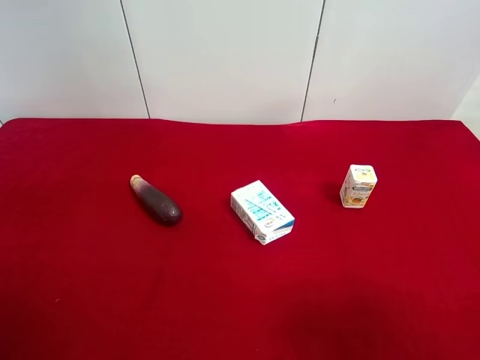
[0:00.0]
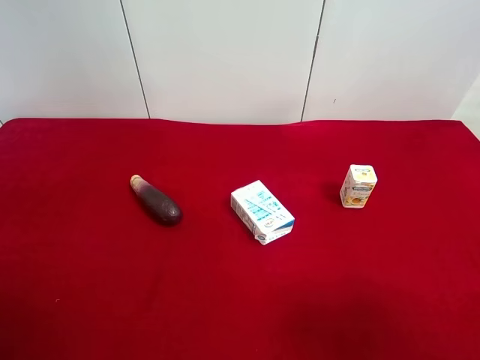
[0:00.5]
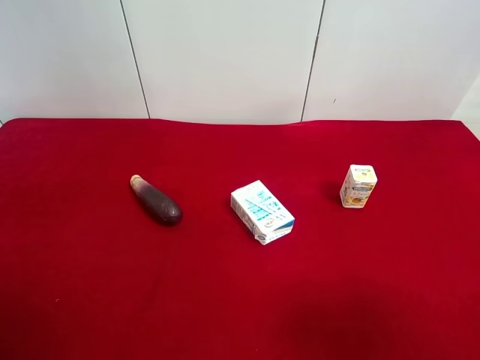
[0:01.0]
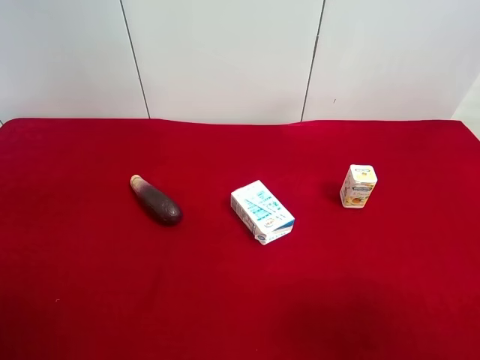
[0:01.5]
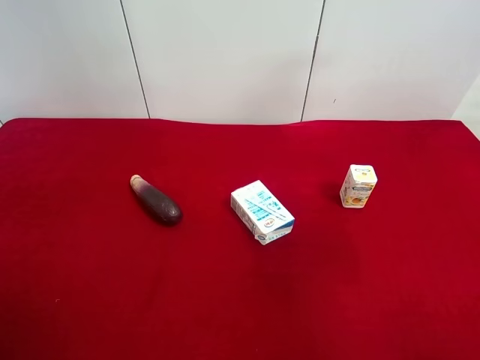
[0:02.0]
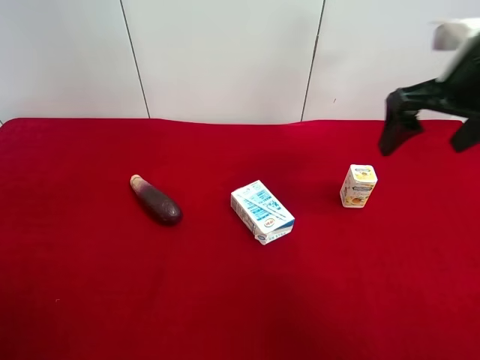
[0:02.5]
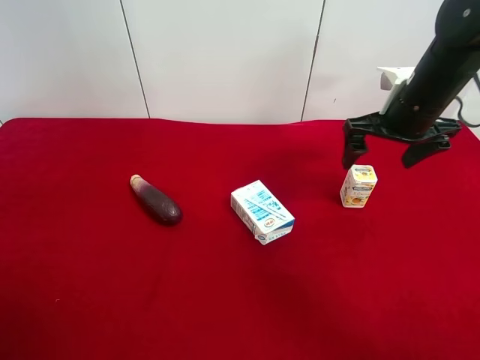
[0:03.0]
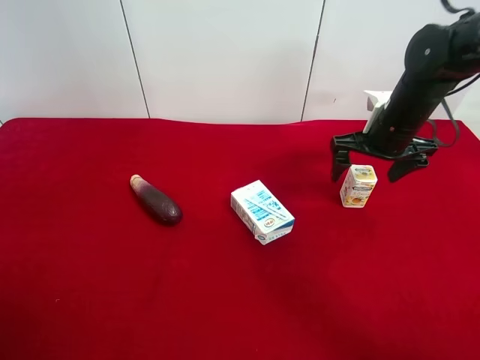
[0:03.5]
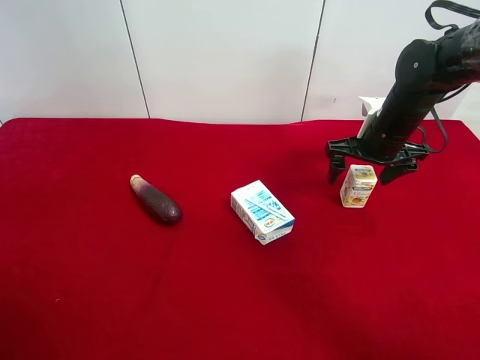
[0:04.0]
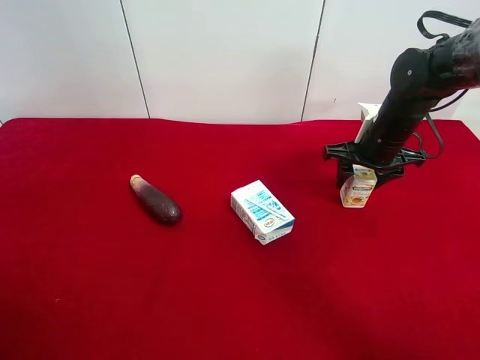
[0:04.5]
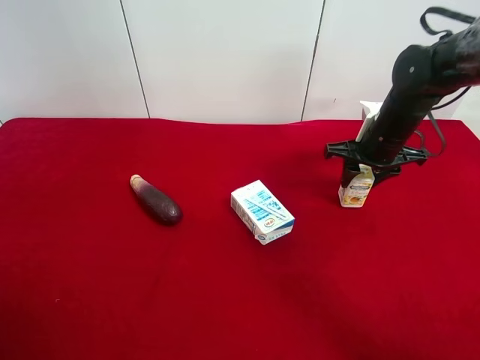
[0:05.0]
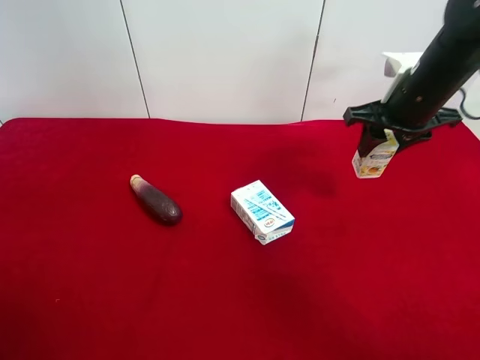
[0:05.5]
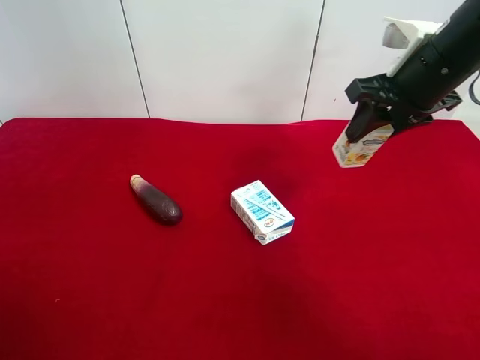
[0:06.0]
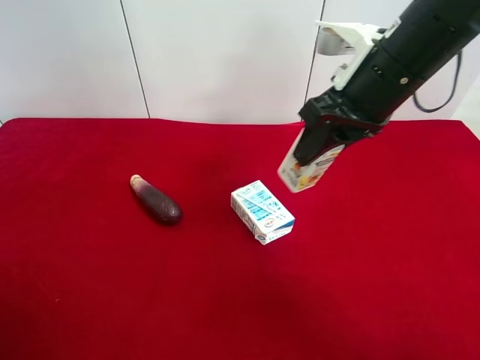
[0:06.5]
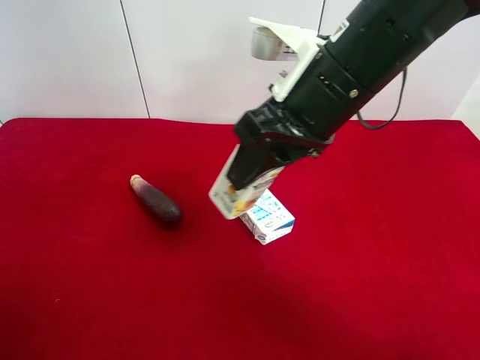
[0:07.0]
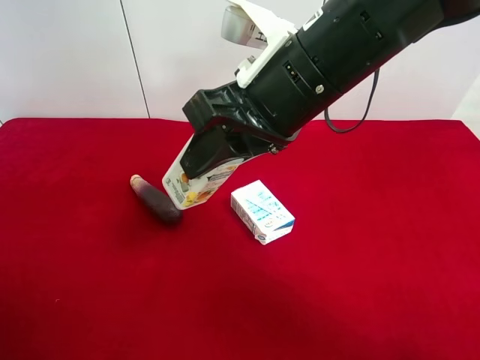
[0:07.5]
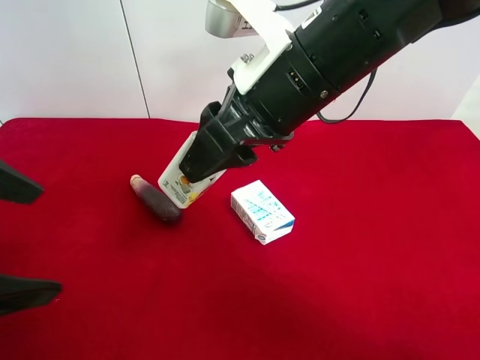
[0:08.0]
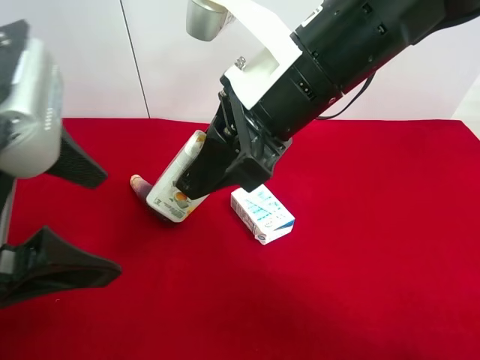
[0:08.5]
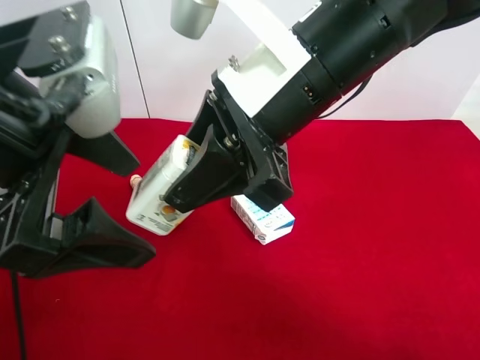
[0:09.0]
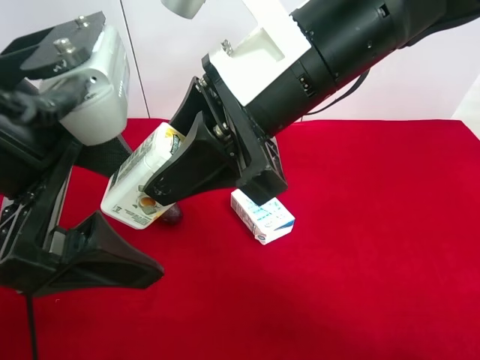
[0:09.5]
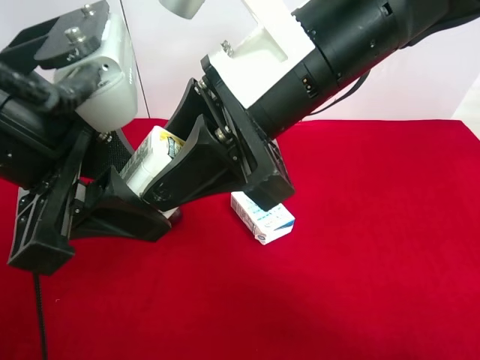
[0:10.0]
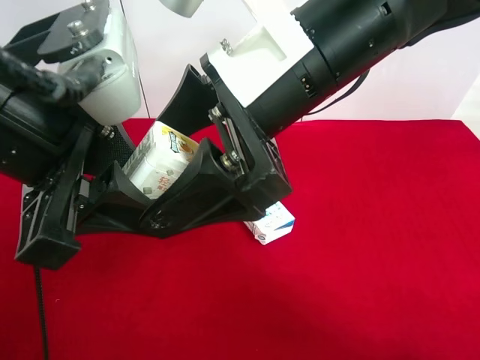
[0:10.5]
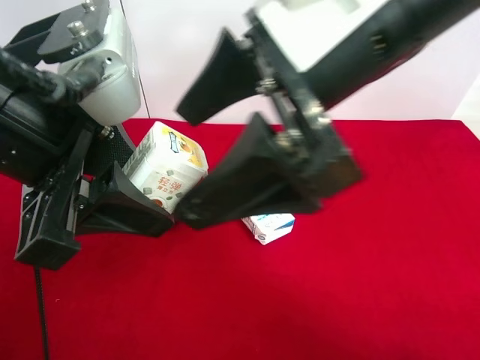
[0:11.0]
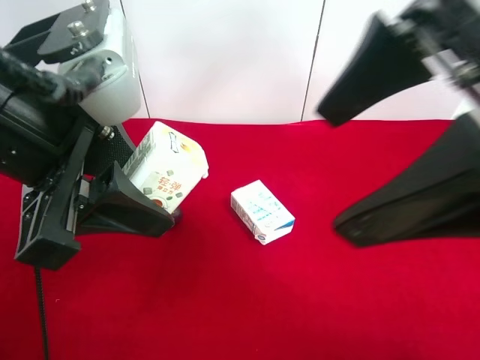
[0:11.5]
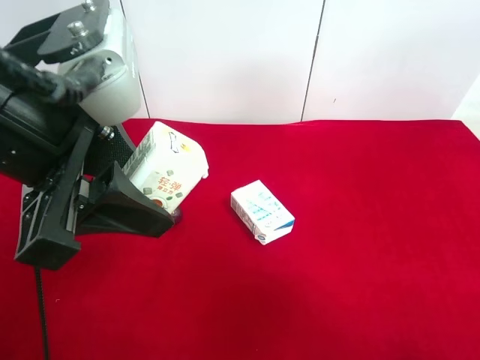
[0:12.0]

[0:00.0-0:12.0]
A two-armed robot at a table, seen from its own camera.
Task of the whole recording: use the right gripper to pick up the item and transfer it from the right gripper to the left gripper.
Step, 0:00.0 to 0:04.5: Use the right gripper to grab the square chewing gum on the right side of the table.
Step, 0:05.0 to 0:10.5: Pass the square chewing gum to the left gripper.
0:02.0 to 0:04.0: The right gripper shifts roughly 30 cm forward and downward.
0:04.0 to 0:06.0: The right gripper shifts about 15 cm upward and backward, and closes.
0:06.0 to 0:08.0: The left gripper travels forward and to the right by some 15 cm, while the right gripper is displaced to the left and backward by roughly 20 cm.
0:08.0 to 0:10.0: The left gripper shifts roughly 10 cm to the right, and closes its fingers.
0:10.0 to 0:12.0: The right gripper heads to the right and backward, covering about 25 cm, and opens its fingers.

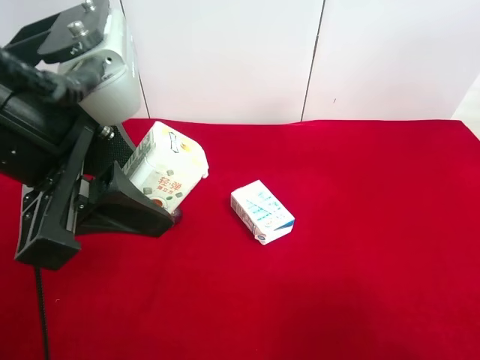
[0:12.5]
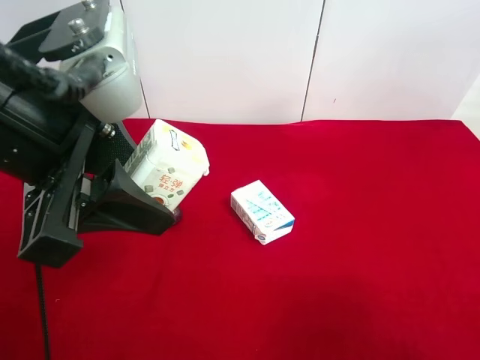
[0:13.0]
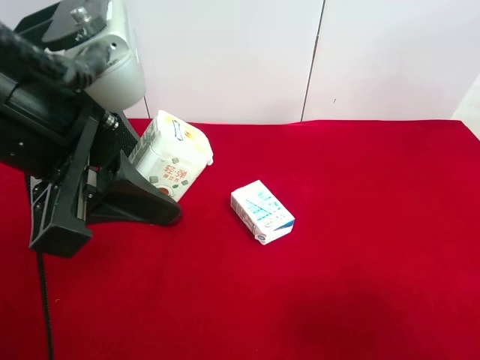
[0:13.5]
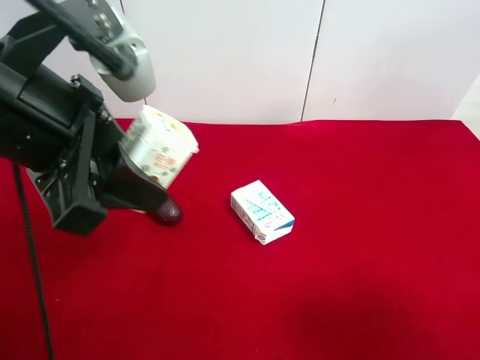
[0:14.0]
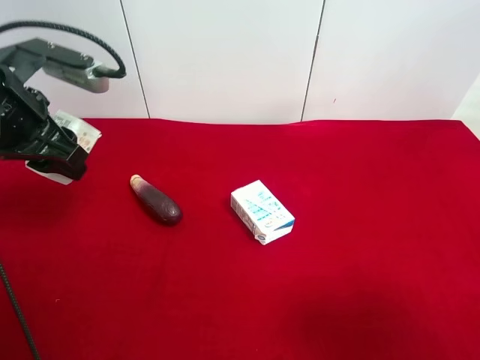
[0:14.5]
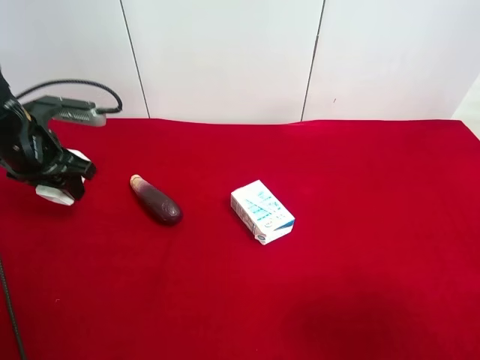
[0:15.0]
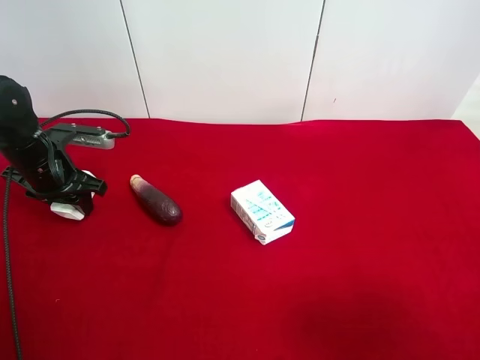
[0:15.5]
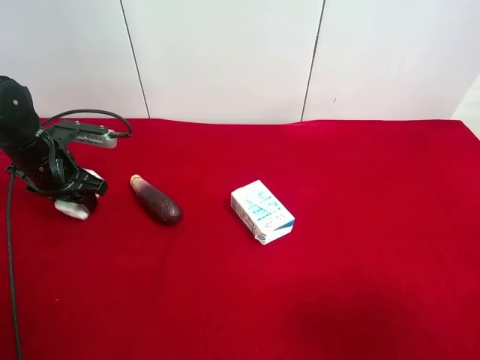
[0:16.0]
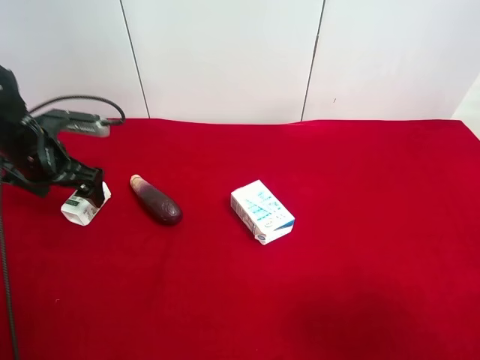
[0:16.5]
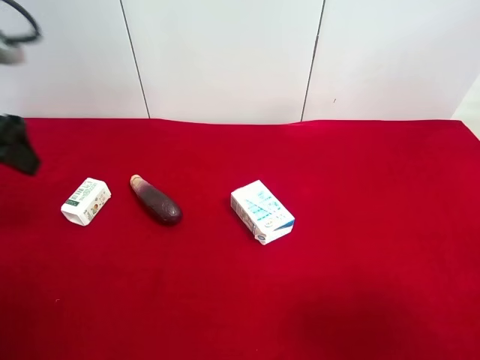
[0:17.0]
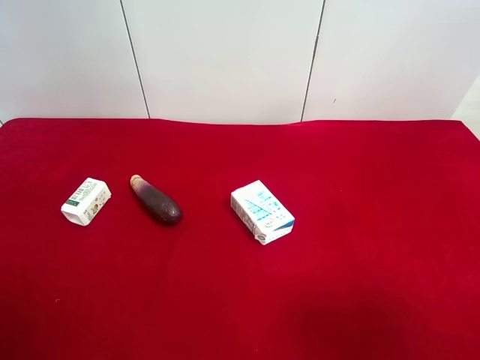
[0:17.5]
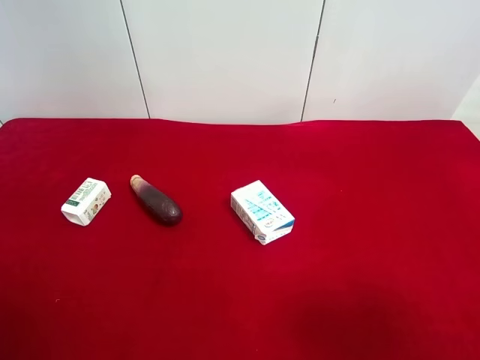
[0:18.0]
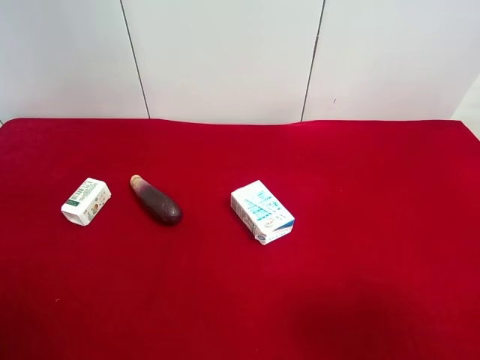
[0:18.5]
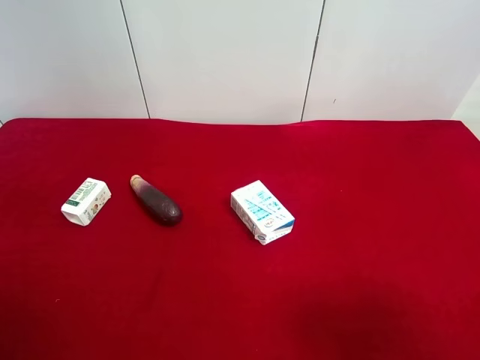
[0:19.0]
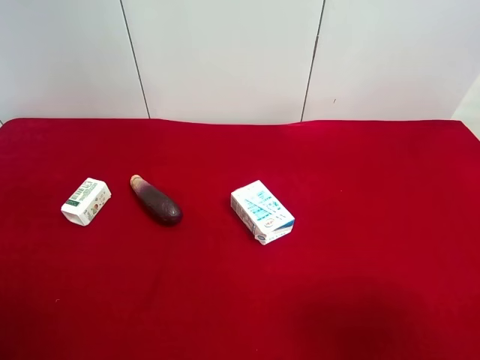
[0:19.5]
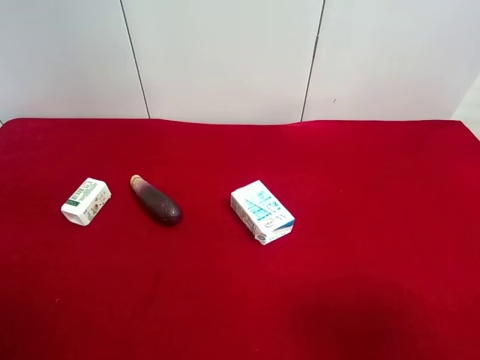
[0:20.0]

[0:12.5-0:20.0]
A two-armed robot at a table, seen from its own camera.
Task of the whole recording: use the right gripper to pick up the item and transfer it from the right gripper to the left gripper.
Step, 0:12.5 to 0:16.0: The left gripper places square chewing gum on the left side of the table.
0:12.5 to 0:14.5: The left gripper heads forward, to the left and downward, covering some 15 cm.
0:14.5 to 0:16.5: The left gripper travels downward and forward by approximately 10 cm, and opens.
0:16.5 to 0:18.0: The left gripper goes some 30 cm backward.

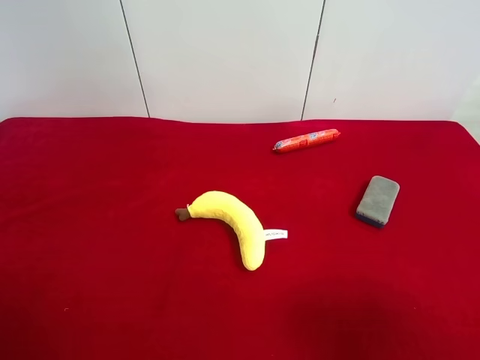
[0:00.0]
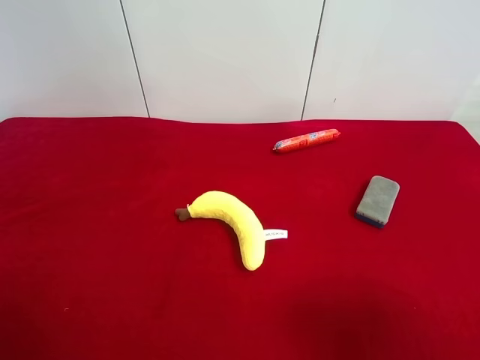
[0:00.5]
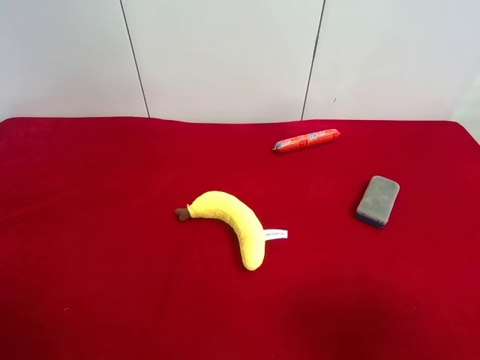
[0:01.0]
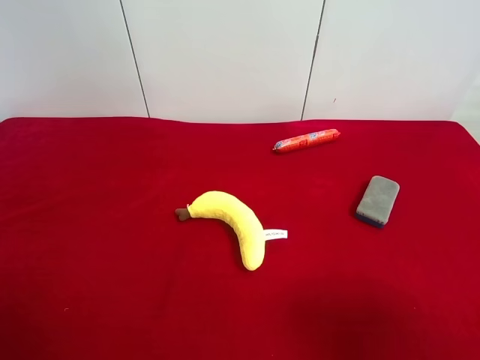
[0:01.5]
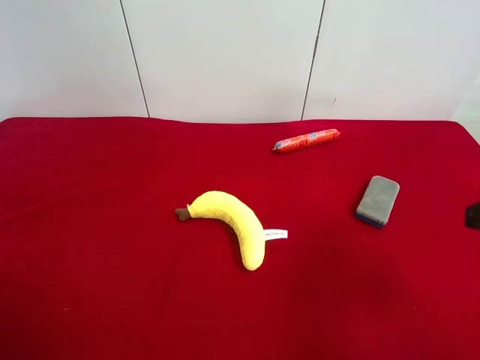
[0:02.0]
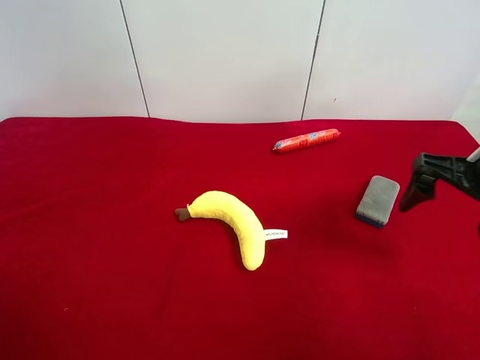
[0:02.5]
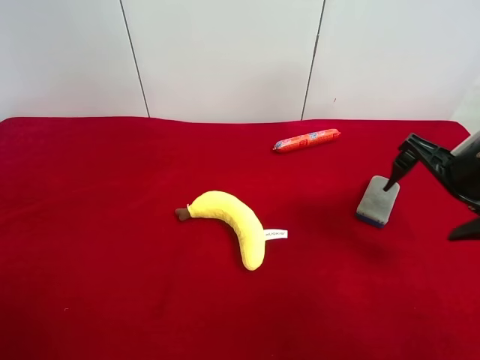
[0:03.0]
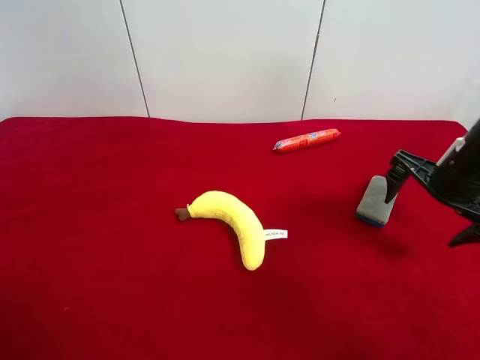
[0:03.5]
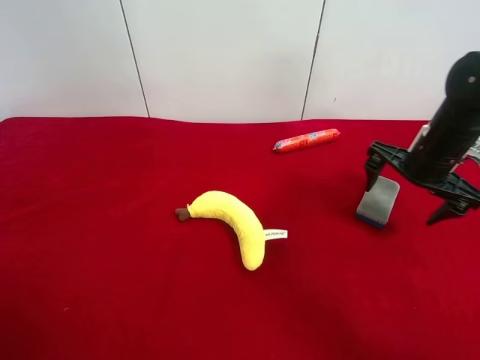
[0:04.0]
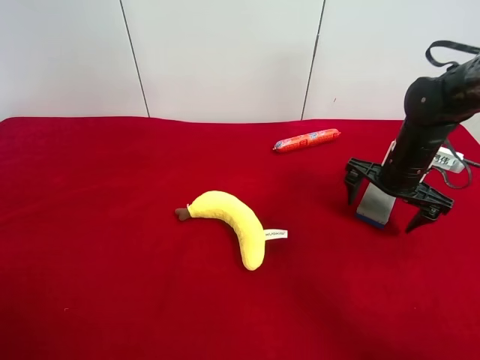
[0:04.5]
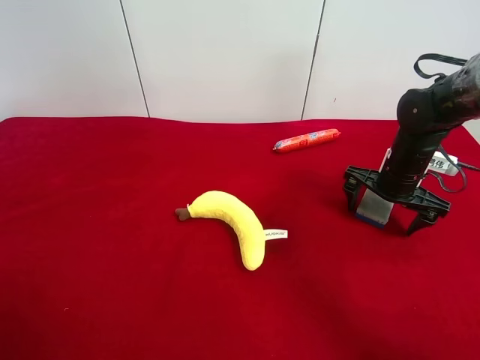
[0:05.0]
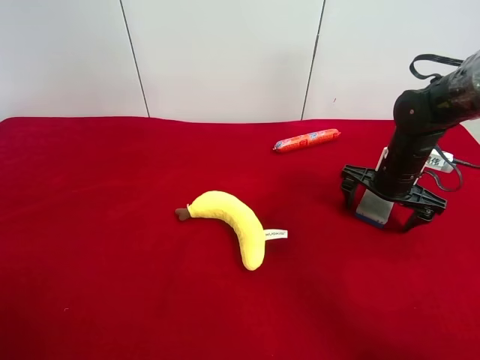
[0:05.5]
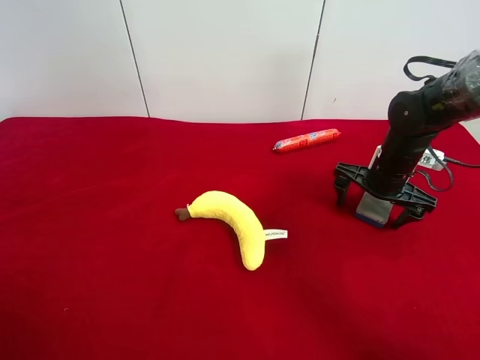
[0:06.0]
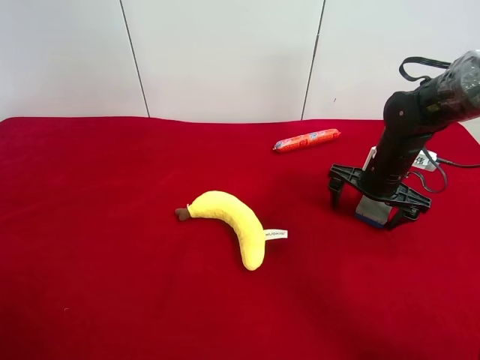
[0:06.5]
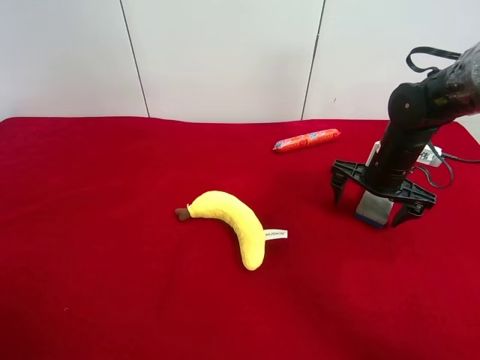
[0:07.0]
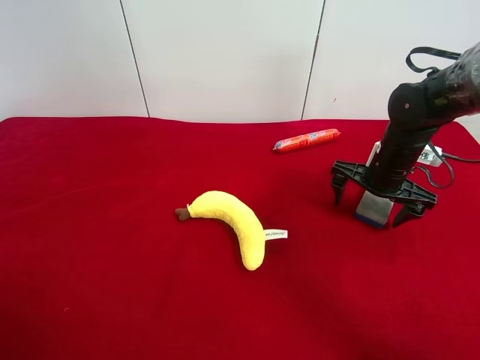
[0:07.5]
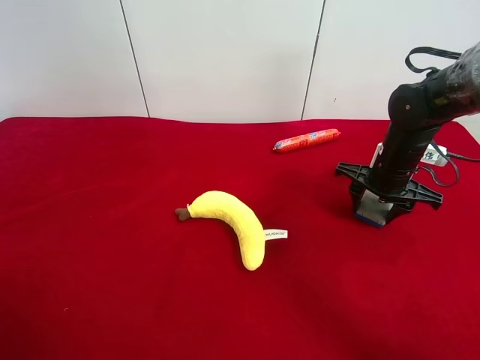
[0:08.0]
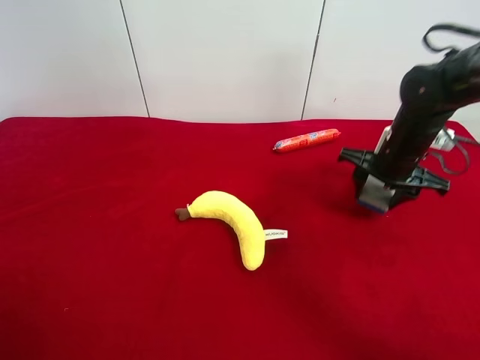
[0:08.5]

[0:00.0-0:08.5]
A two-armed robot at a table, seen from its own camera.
Task of the whole recording: use the right gripper to pick up the item and transfer it from the right gripper to the left gripper.
Step, 0:00.0 to 0:08.0: Use the right gripper to grab the blue blackboard erasure on the right side of the table.
0:02.0 to 0:04.0: The right gripper shifts approximately 25 cm forward and downward.
0:04.0 to 0:06.5: The right gripper travels downward by about 5 cm.
0:06.5 to 0:08.5: The right gripper goes about 5 cm upward, and closes up.
